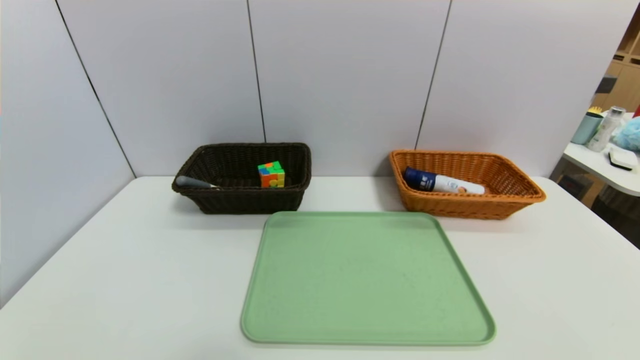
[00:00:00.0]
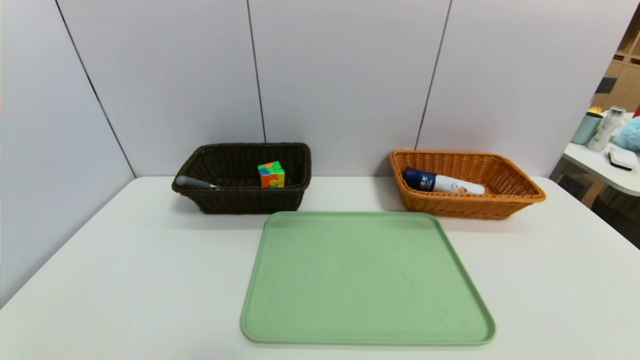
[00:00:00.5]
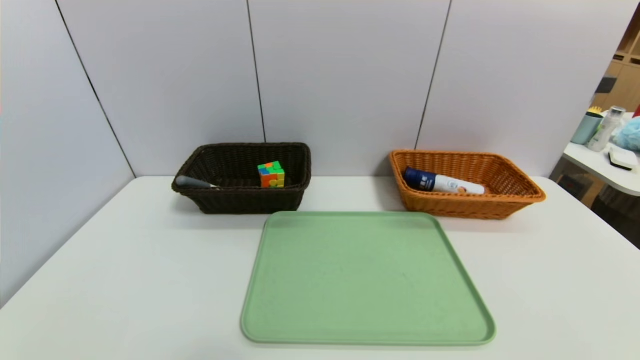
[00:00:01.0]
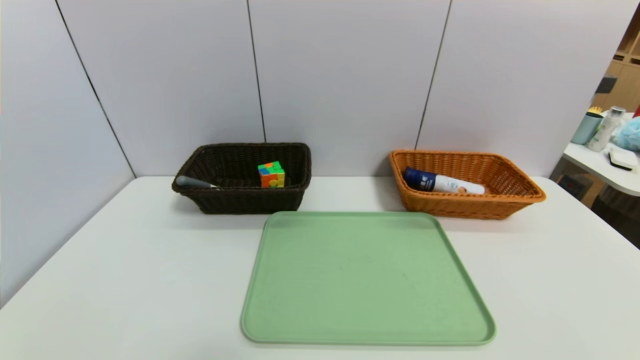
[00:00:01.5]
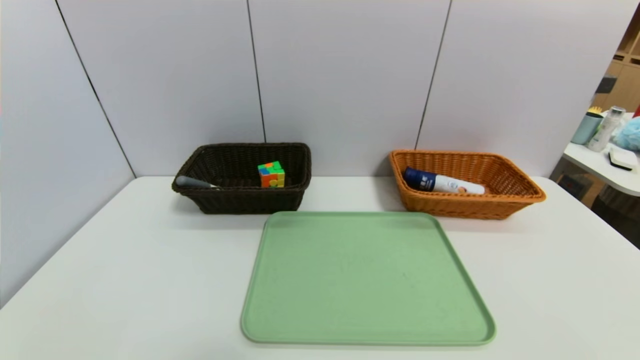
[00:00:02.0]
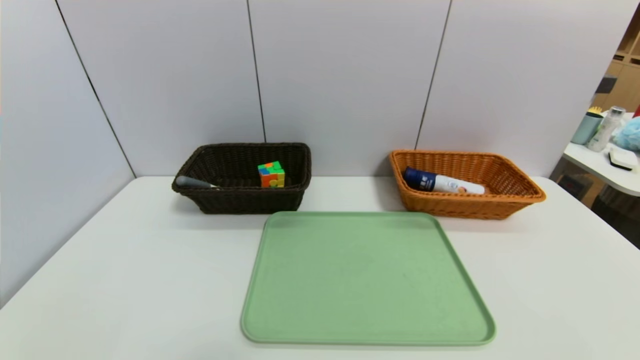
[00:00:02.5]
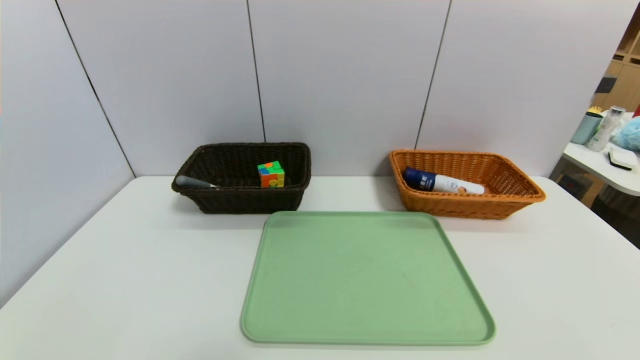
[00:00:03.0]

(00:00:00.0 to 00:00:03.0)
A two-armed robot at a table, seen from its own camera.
Task of the whole recording: place the food in the right basket with the right gripper, and place the non food items in the left basket with the left gripper.
00:00:01.5 - 00:00:03.0: Both grippers stay put.
